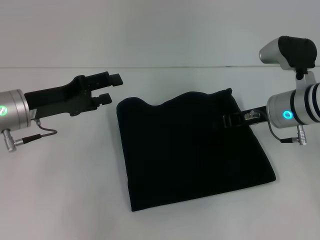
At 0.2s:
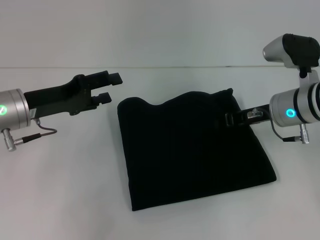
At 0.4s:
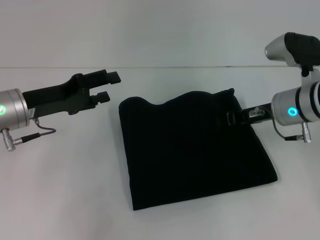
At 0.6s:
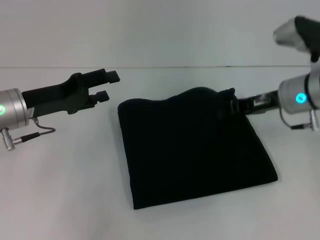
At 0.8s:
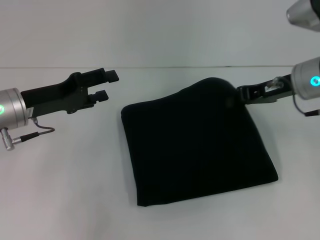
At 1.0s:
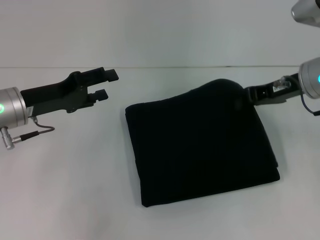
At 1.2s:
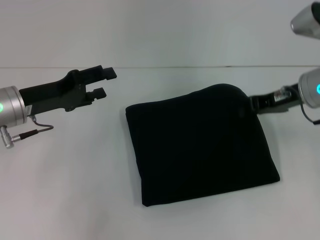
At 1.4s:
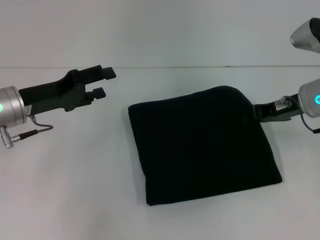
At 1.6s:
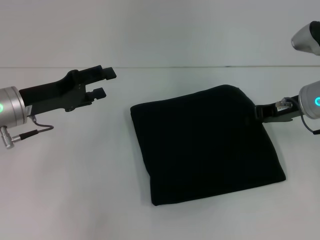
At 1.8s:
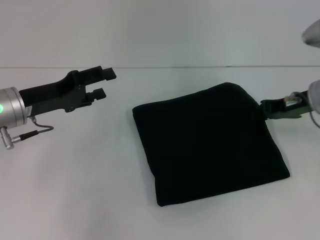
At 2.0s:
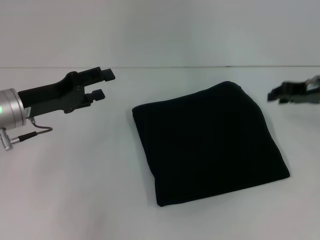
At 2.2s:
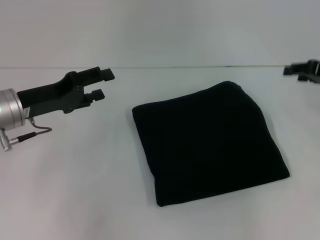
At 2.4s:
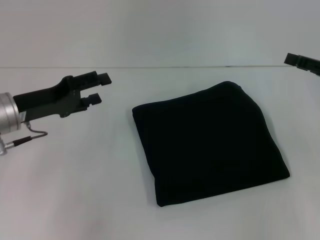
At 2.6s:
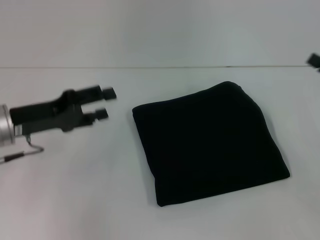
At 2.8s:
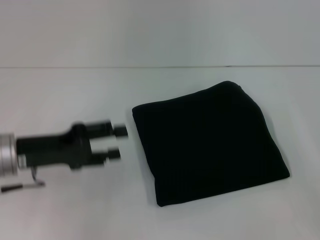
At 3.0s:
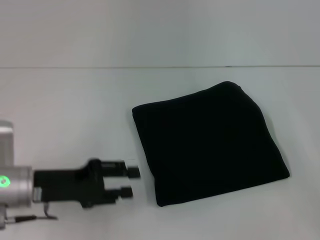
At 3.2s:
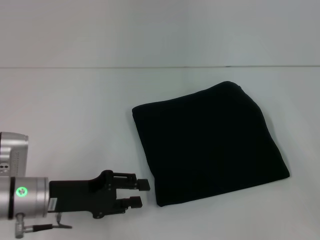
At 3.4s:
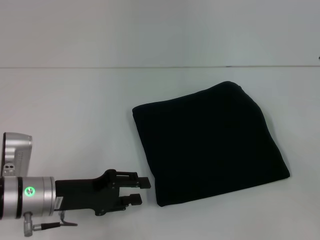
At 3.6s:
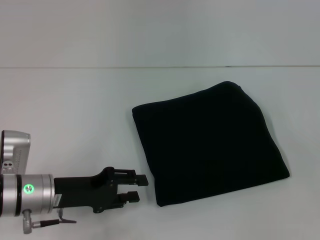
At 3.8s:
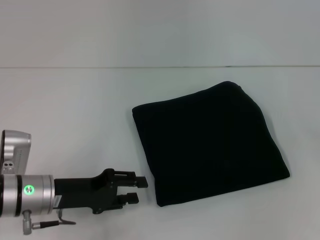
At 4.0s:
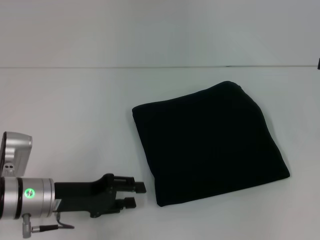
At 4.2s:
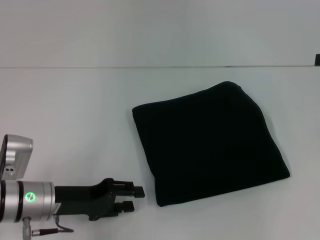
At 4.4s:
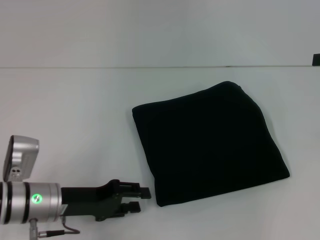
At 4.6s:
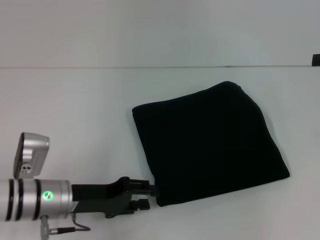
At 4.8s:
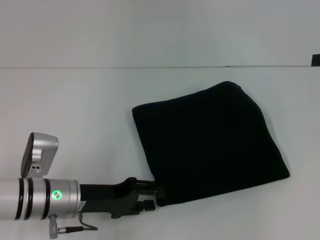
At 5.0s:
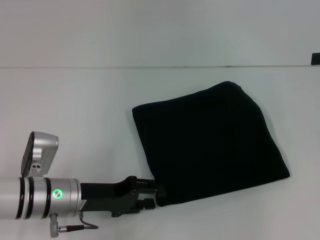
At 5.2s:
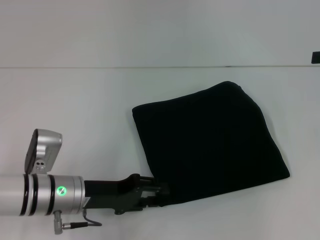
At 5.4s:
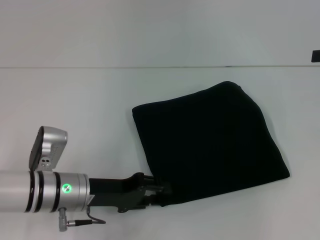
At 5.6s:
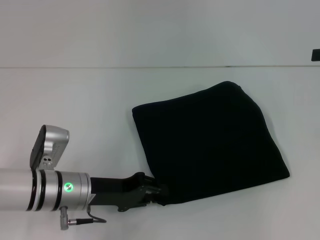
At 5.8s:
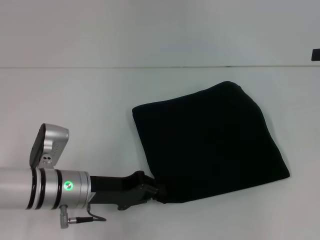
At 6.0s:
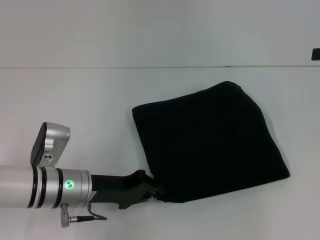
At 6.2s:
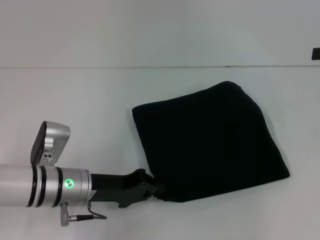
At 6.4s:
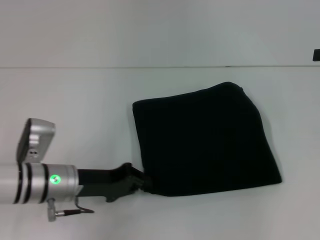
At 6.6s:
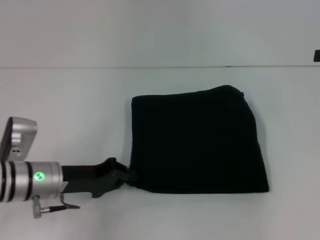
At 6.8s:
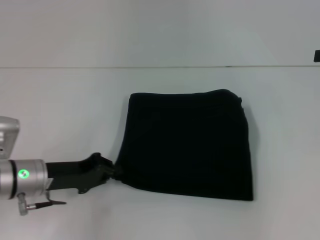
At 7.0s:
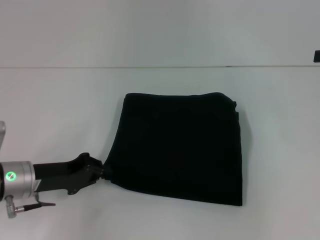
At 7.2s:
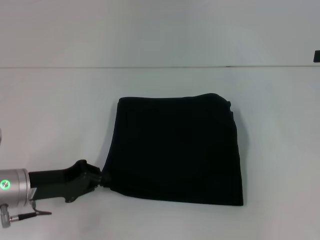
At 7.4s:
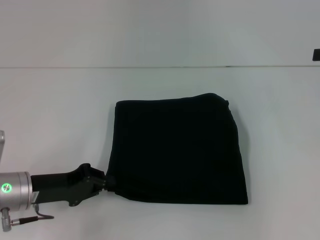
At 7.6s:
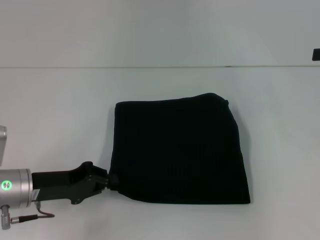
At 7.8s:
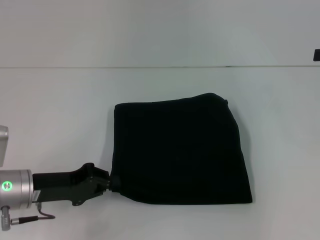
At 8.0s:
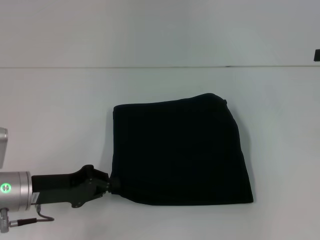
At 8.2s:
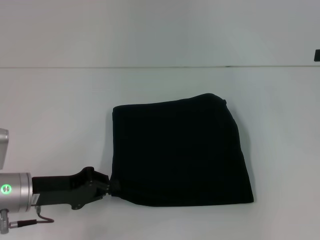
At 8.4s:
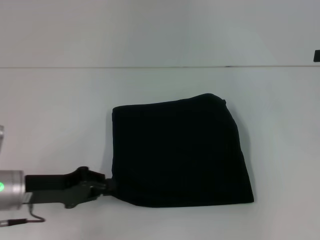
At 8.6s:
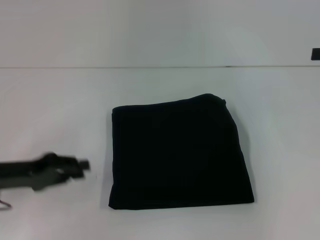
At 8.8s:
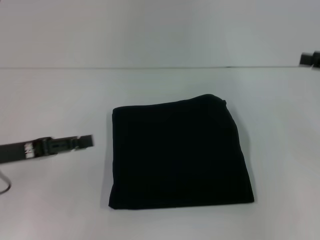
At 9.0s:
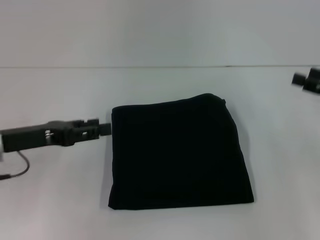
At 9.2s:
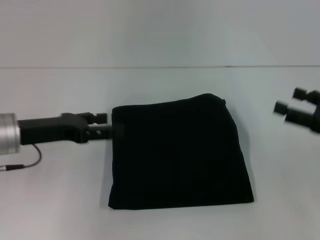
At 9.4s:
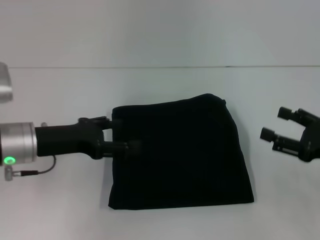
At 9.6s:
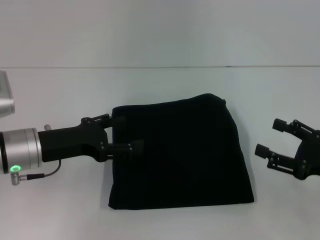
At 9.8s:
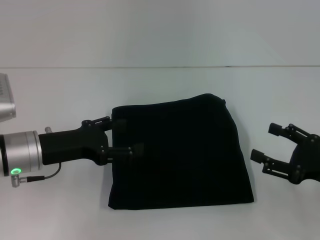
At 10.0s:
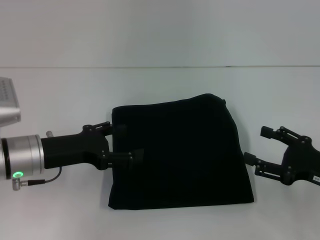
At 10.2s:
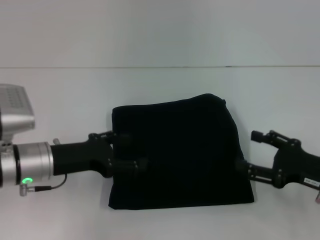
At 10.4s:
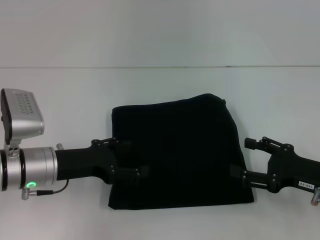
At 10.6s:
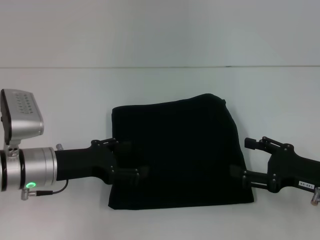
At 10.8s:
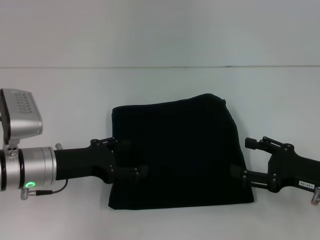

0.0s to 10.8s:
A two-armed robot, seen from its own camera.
1.6s to 3.0s: The right gripper shifts some 15 cm backward and to the right, and opens its fingers. Meanwhile the left gripper moves backward, some 10 cm.
3.0s to 4.6s: The left gripper ends up roughly 5 cm from where it was. Meanwhile the right gripper goes approximately 15 cm upward and forward.
4.6s to 6.2s: The left gripper closes its fingers.
6.2s to 7.8s: The left gripper goes some 10 cm to the left.
7.8s to 9.2s: The right gripper travels downward and backward by roughly 15 cm; the left gripper travels upward by some 5 cm, and opens its fingers.
9.2s to 10.8s: The right gripper shifts some 5 cm downward, while the left gripper changes place by roughly 5 cm.
